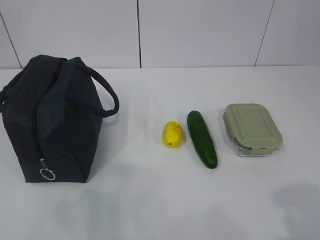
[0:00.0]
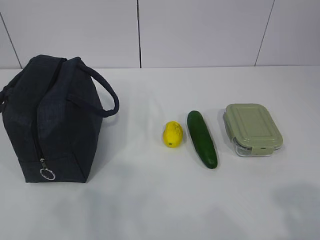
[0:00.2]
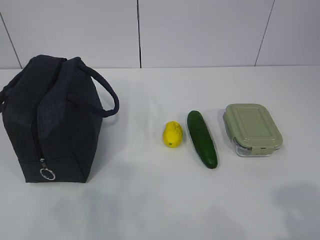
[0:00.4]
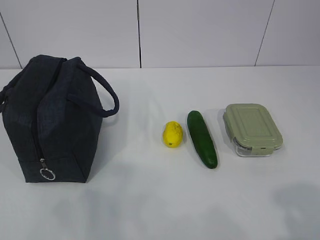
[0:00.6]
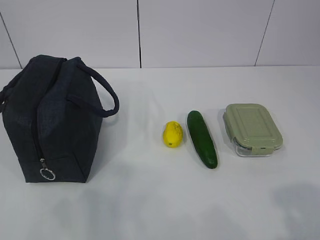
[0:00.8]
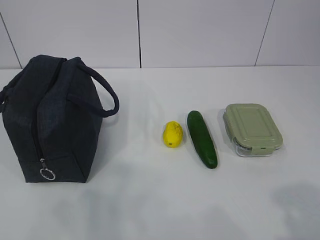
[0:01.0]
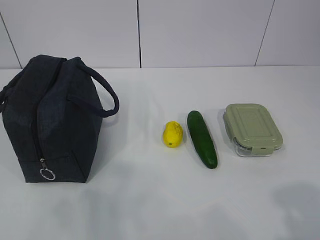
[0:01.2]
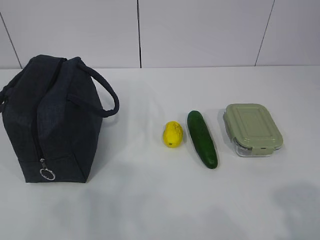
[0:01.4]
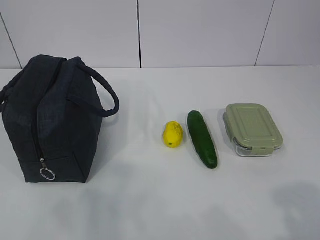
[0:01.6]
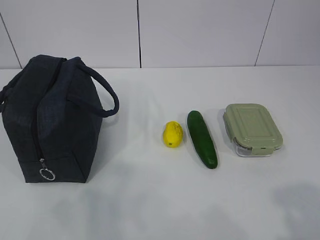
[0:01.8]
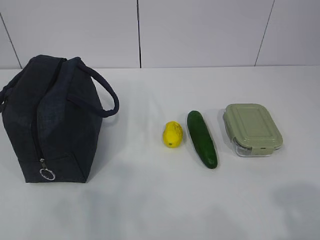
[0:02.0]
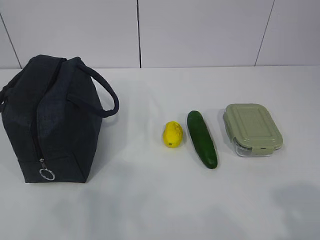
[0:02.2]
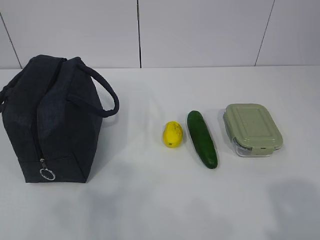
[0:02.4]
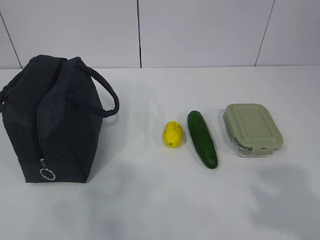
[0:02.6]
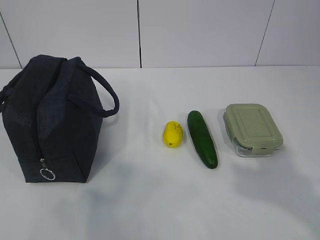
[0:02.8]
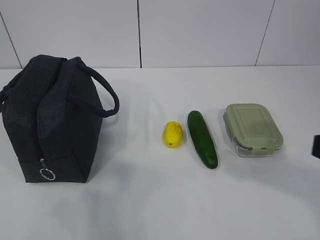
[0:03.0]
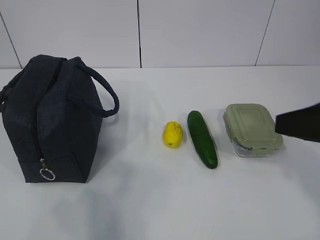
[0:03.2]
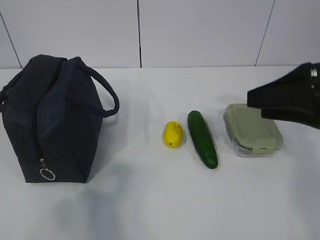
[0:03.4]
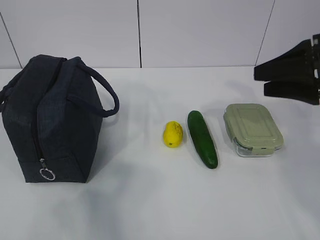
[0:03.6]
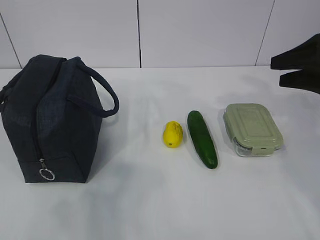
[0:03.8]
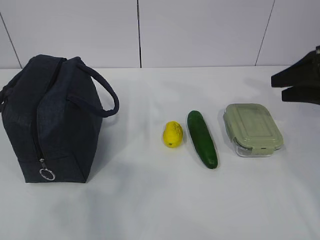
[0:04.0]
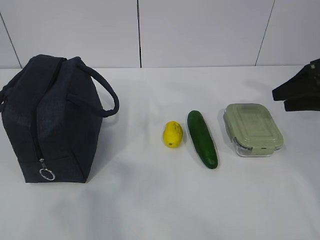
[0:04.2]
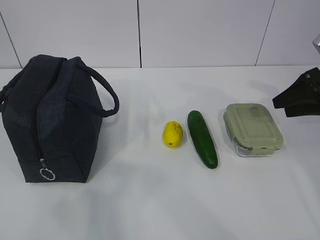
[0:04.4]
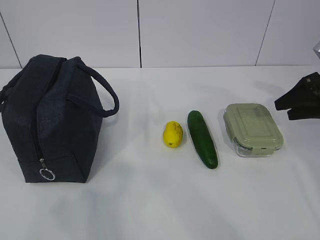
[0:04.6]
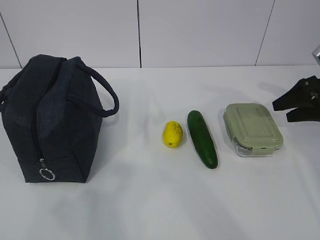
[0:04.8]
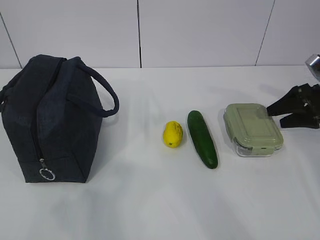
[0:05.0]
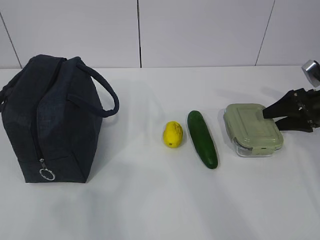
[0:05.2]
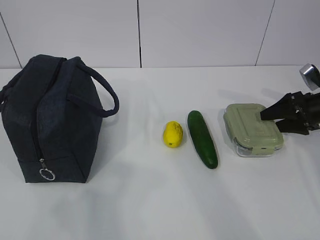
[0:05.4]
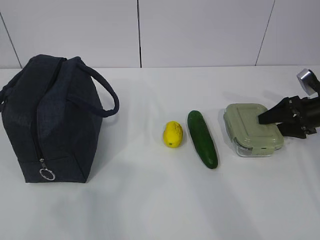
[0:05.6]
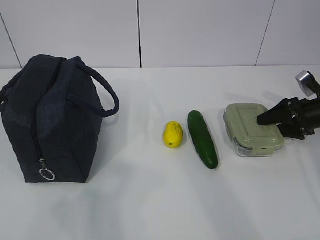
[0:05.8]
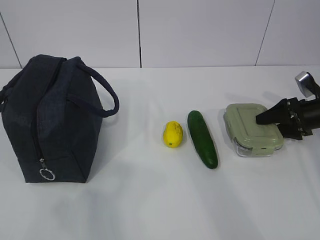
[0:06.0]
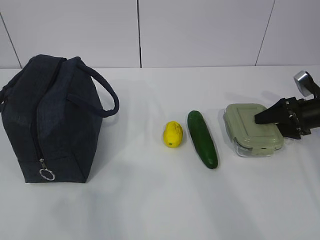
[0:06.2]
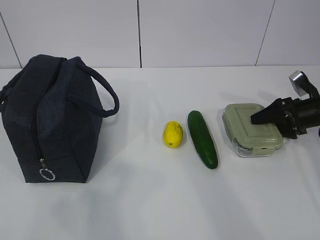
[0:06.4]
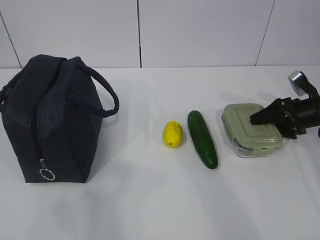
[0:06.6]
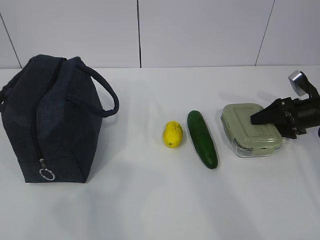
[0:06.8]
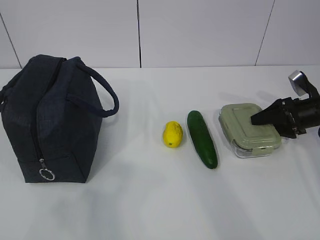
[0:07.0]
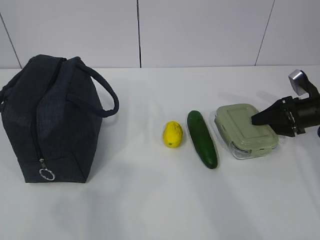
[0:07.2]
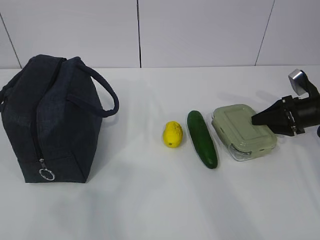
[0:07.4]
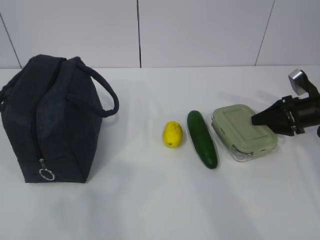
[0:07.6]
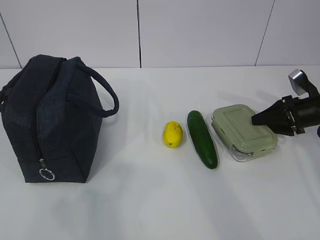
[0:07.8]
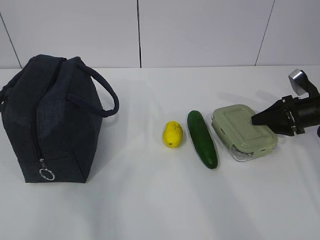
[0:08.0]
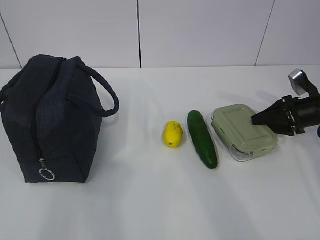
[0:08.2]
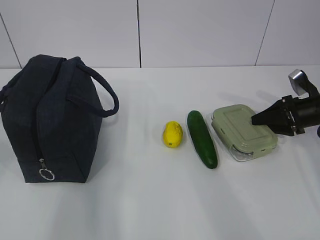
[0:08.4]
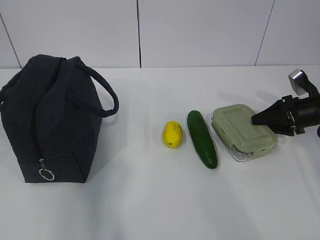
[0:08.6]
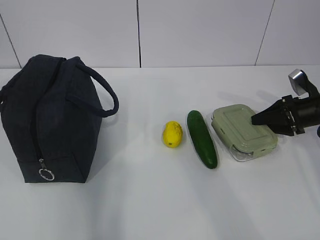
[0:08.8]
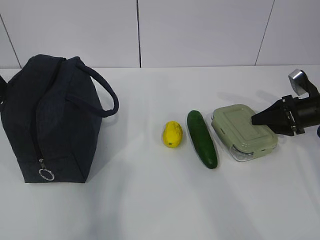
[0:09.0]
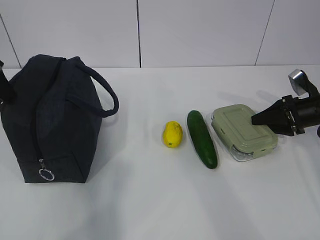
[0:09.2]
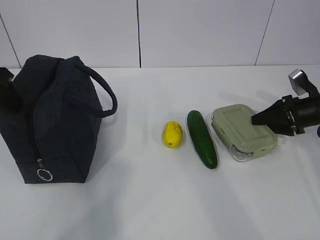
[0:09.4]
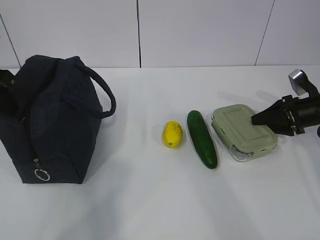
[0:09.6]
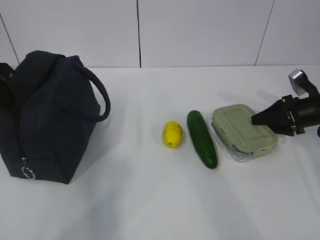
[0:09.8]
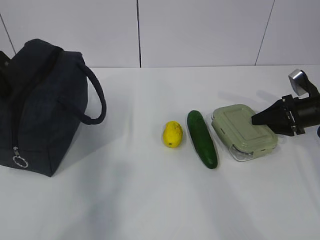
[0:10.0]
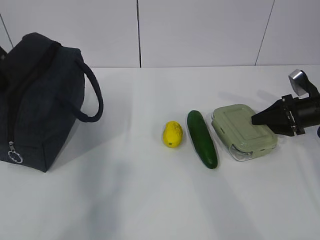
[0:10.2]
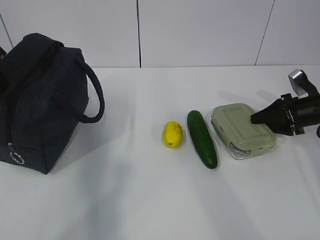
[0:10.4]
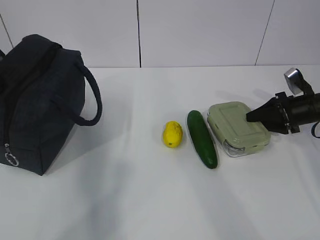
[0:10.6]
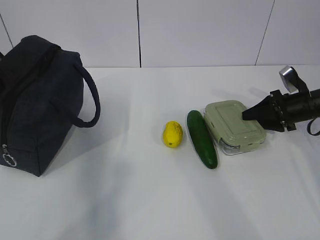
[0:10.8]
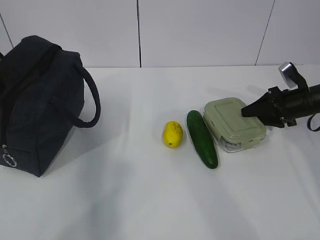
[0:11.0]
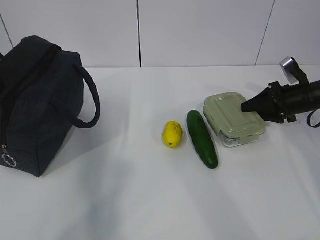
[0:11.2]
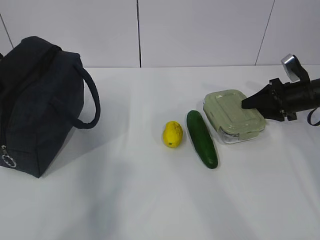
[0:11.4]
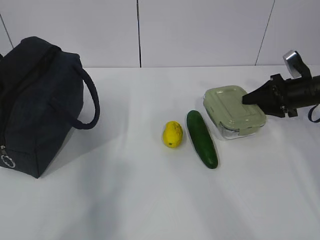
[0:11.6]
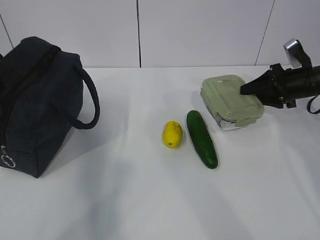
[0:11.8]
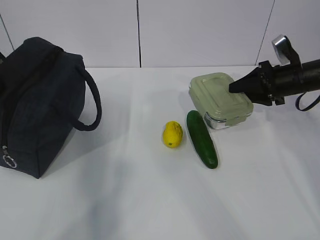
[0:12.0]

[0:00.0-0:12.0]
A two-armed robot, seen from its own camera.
Step, 0:00.0 to 0:06.0: Grab the lunch box with your right hand.
0:01.6 to 0:03.0: The right gripper goes about 10 cm forward.
0:03.0 to 0:04.4: The right gripper moves forward and to the right, roughly 30 cm.
0:04.4 to 0:06.0: The right gripper heads downward, covering roughly 10 cm.
0:06.0 to 0:07.6: The right gripper closes.
0:09.0 to 0:10.4: The left gripper closes.
0:10.4 to 0:12.0: The right gripper heads upward and to the left, covering approximately 10 cm.

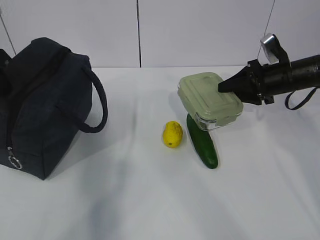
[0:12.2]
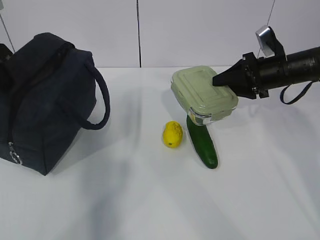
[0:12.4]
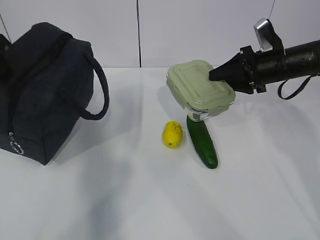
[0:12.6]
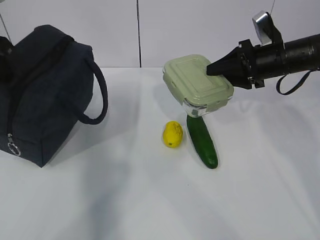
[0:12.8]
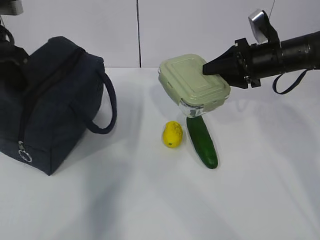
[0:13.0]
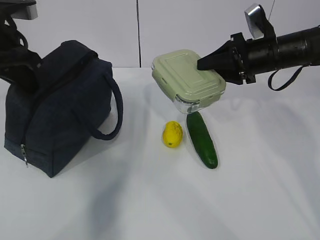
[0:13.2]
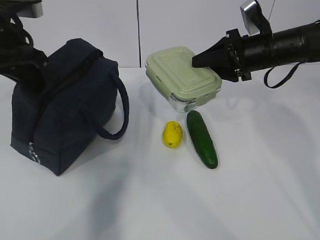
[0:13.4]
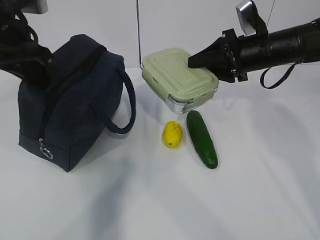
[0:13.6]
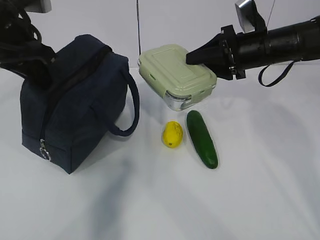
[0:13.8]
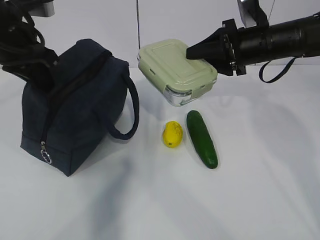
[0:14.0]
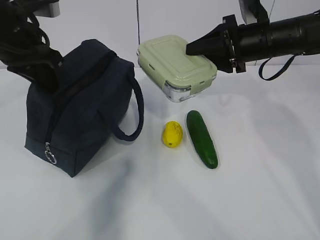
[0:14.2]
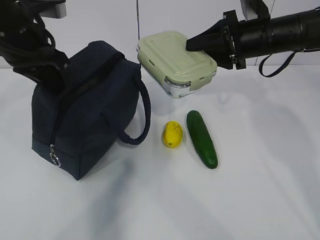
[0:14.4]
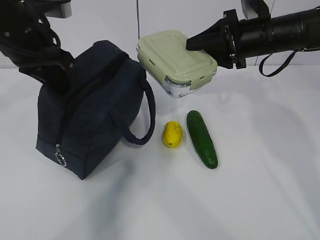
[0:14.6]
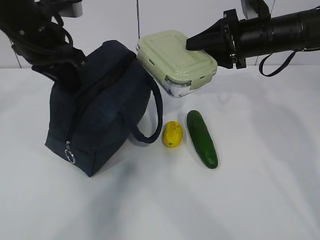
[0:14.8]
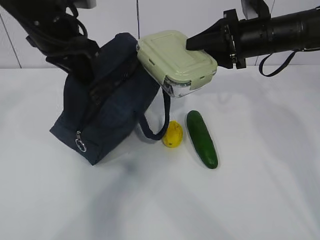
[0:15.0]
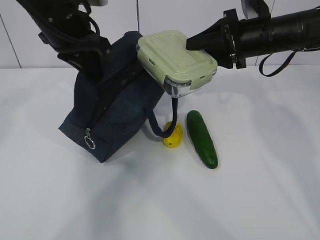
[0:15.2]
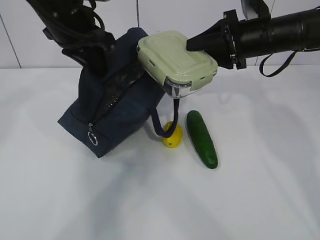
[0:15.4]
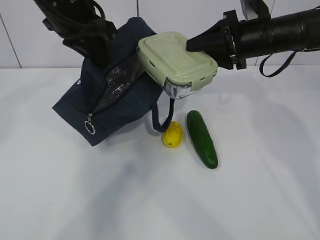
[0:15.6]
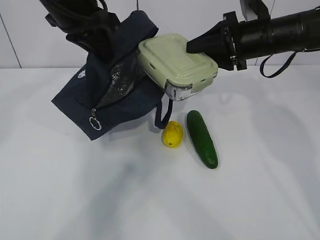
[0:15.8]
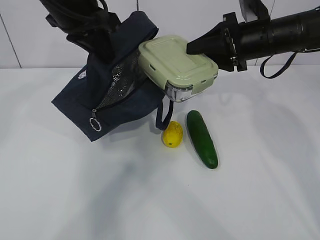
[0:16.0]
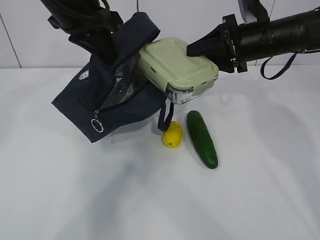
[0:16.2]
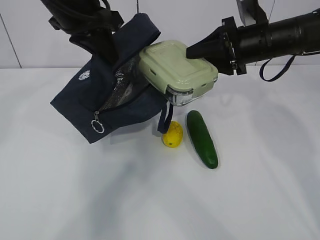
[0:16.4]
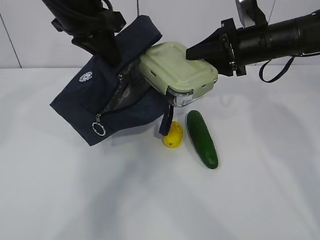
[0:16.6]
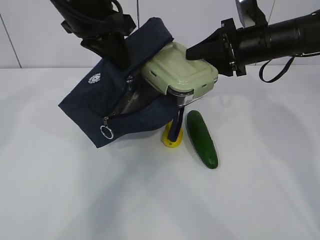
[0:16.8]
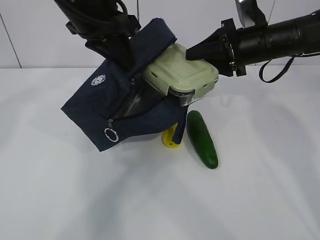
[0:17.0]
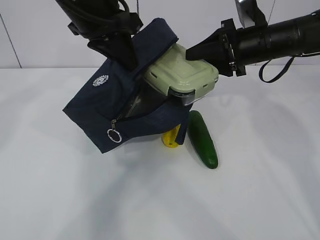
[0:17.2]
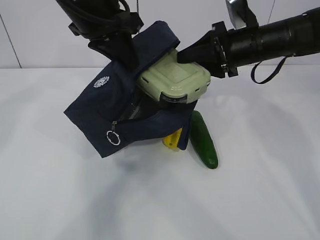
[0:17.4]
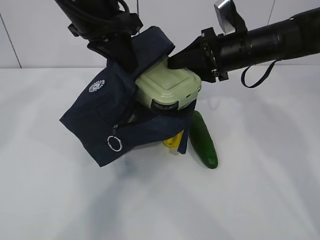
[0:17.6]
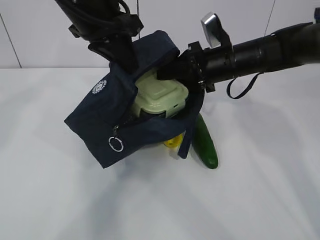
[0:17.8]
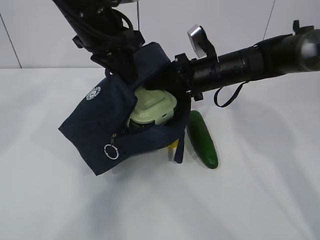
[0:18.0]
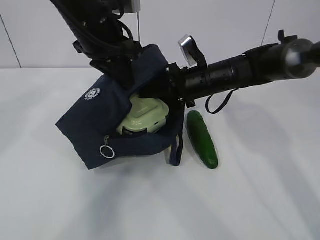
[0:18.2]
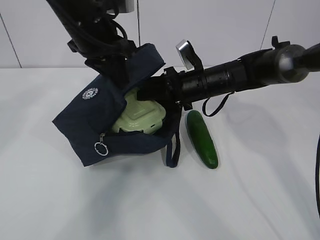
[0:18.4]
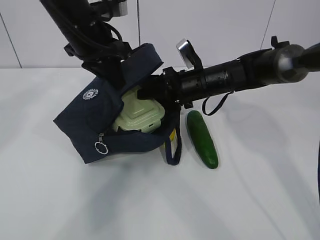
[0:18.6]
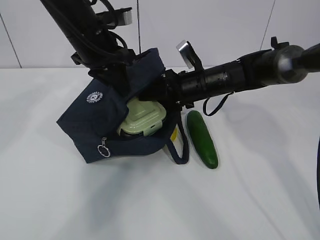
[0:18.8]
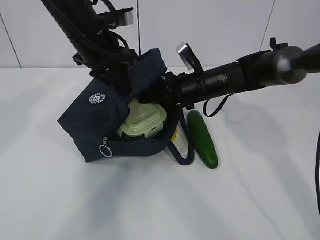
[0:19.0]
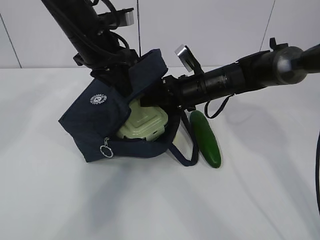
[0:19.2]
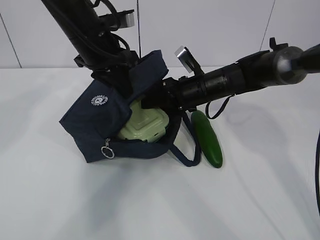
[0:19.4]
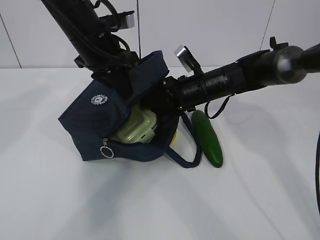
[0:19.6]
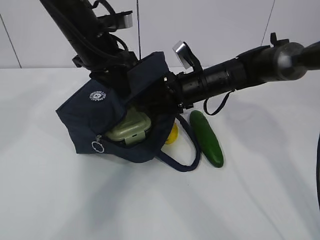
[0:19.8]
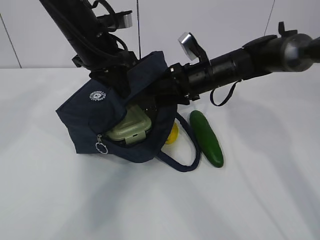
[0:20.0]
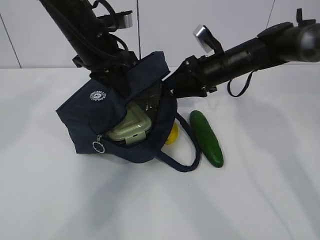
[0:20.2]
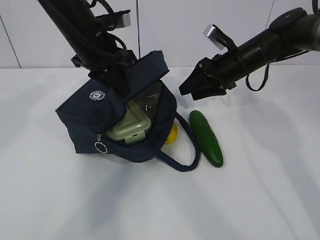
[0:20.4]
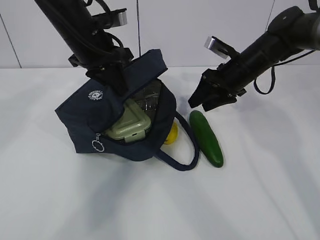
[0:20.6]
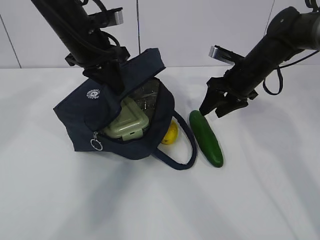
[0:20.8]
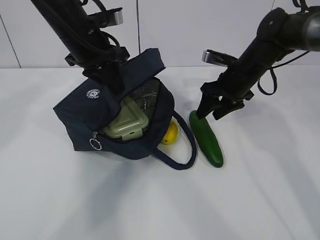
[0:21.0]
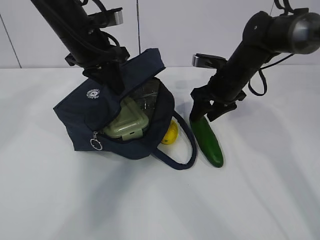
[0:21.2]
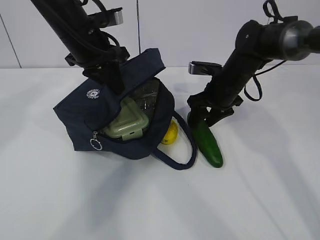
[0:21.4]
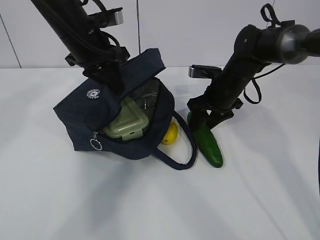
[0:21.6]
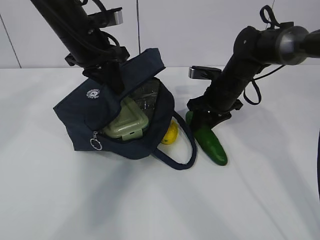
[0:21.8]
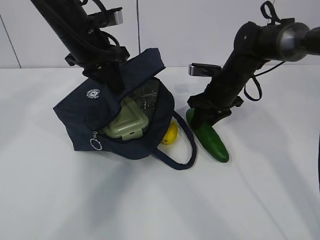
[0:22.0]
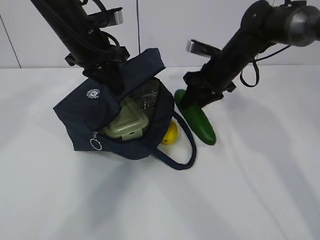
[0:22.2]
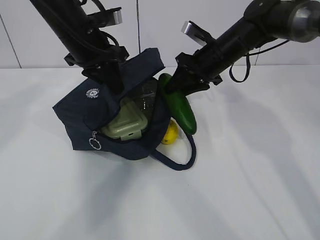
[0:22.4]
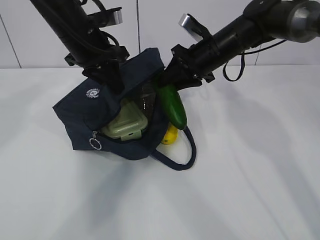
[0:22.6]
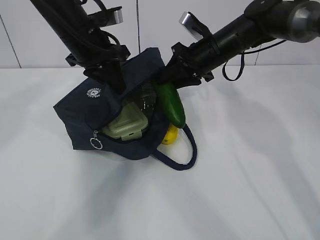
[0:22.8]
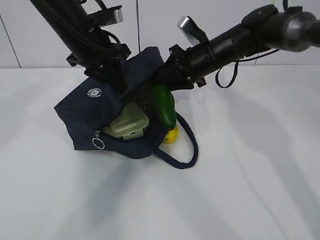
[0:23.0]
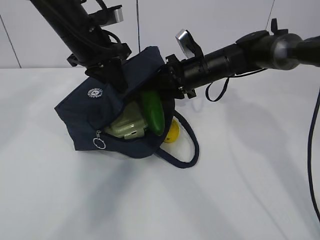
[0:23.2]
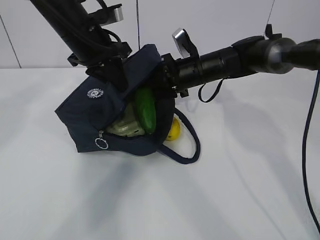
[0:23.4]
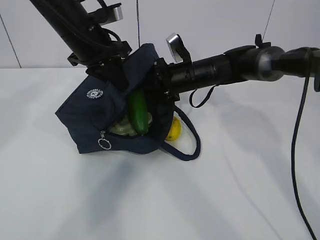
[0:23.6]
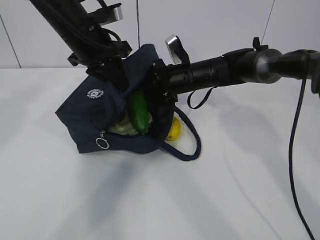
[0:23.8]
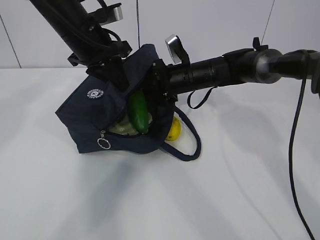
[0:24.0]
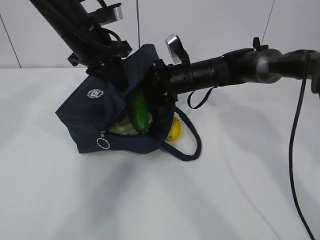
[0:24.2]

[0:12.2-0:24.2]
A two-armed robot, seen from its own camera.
Step, 0:13.0 to 0:16.4: Place it into the bag with your right hand.
Step, 0:16.6 to 0:18.0: Grab the cucumber with your right hand.
Step, 0:18.4 to 0:21.6: Place it into the bag with your right hand.
0:12.2 to 0:13.8: The left gripper travels to the right by some 5 cm; the right gripper heads to the left and upward, covering roughly 10 cm.
0:13.8 to 0:15.2: The left gripper is displaced to the right by about 10 cm.
0:15.2 to 0:16.6: The grippers make only small movements.
0:16.6 to 0:18.2: The right gripper is displaced to the left and downward by approximately 10 cm.
0:18.2 to 0:19.8: The grippers move only a little.
0:19.8 to 0:21.2: The right gripper moves to the right, some 5 cm.
0:21.2 to 0:22.6: The right gripper heads upward, covering approximately 5 cm.
0:22.6 to 0:24.2: The right gripper goes about 5 cm downward.
